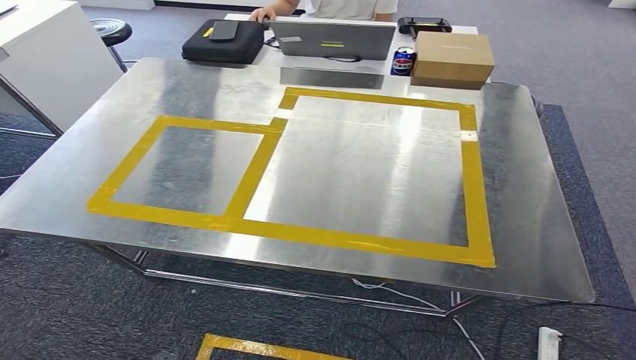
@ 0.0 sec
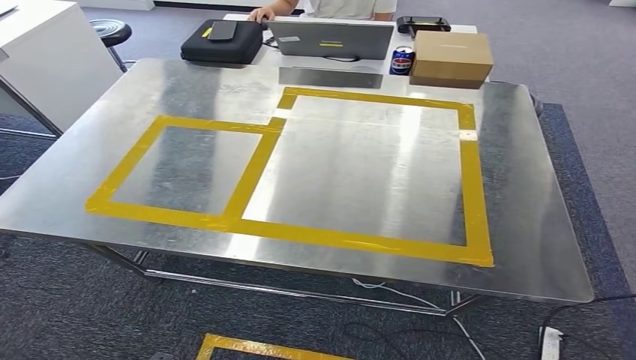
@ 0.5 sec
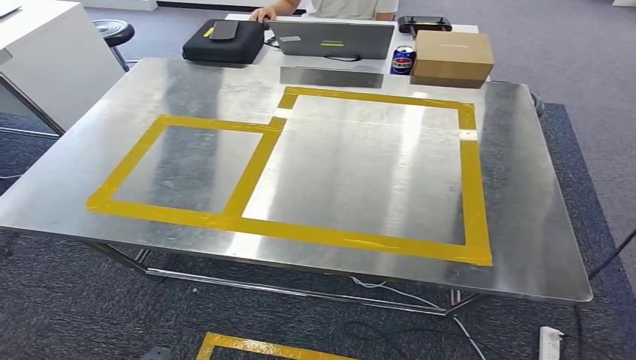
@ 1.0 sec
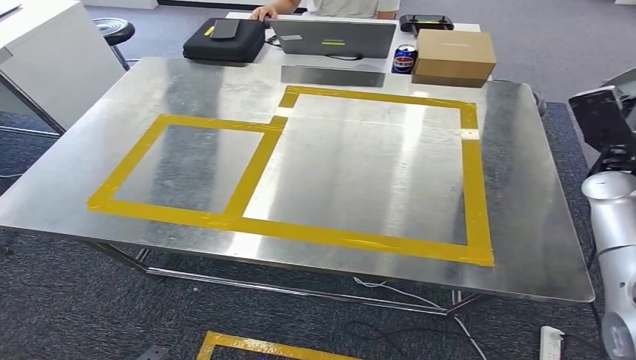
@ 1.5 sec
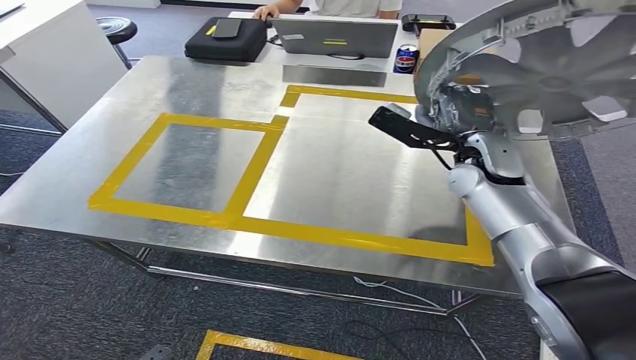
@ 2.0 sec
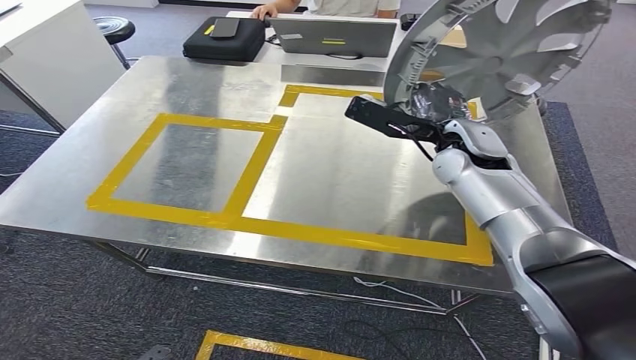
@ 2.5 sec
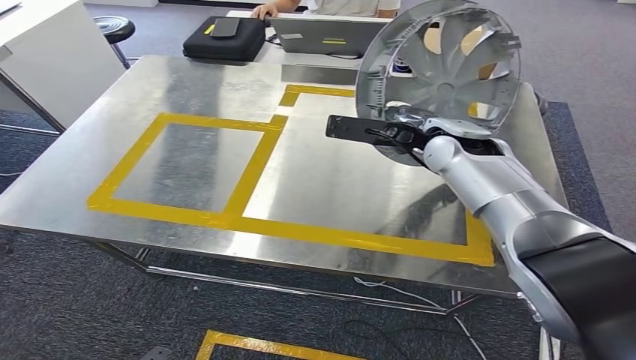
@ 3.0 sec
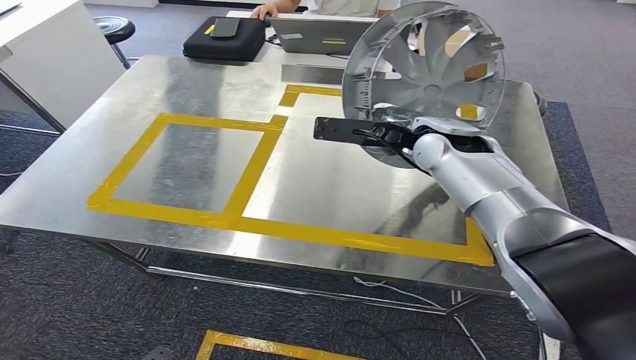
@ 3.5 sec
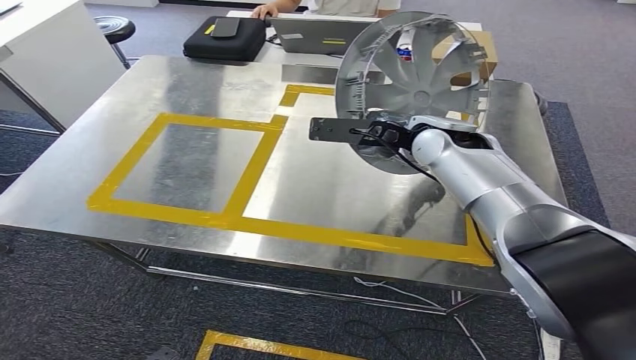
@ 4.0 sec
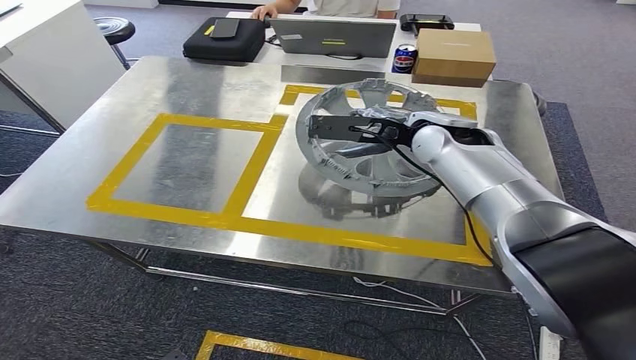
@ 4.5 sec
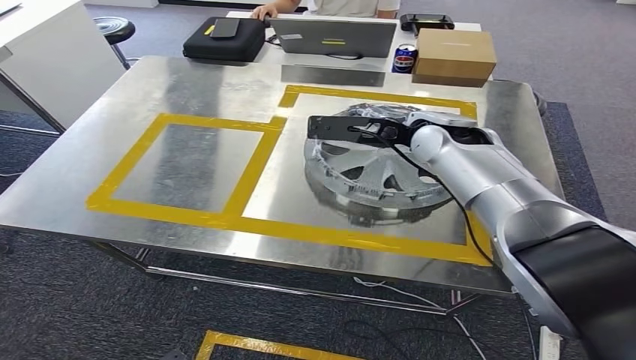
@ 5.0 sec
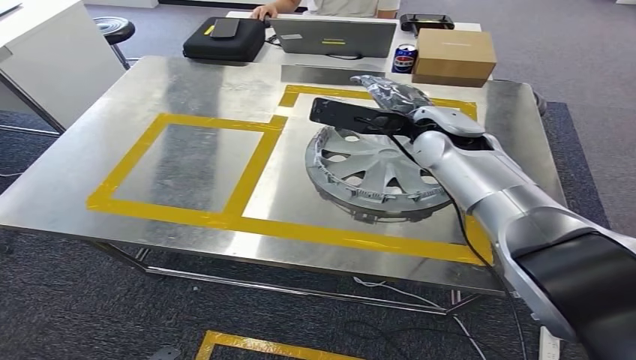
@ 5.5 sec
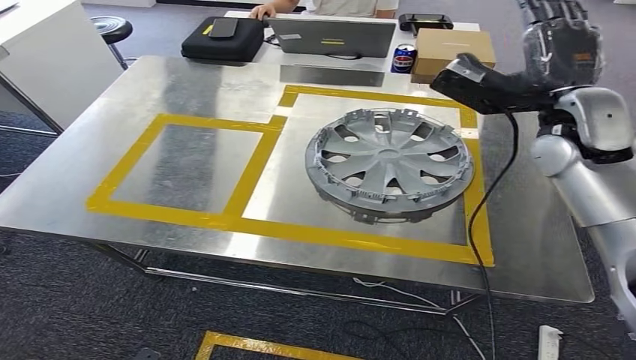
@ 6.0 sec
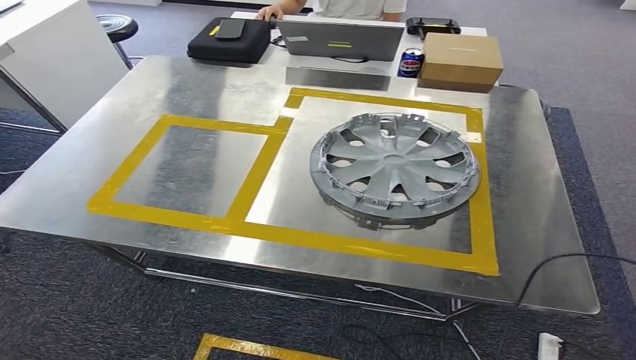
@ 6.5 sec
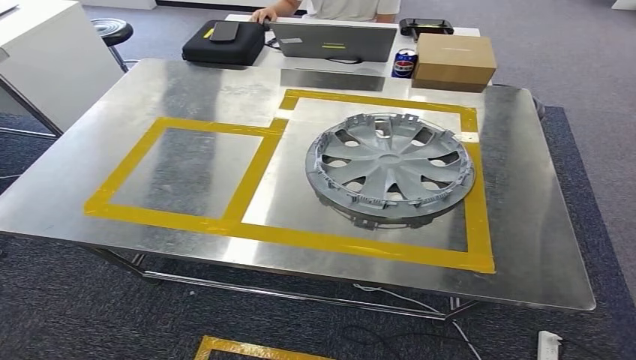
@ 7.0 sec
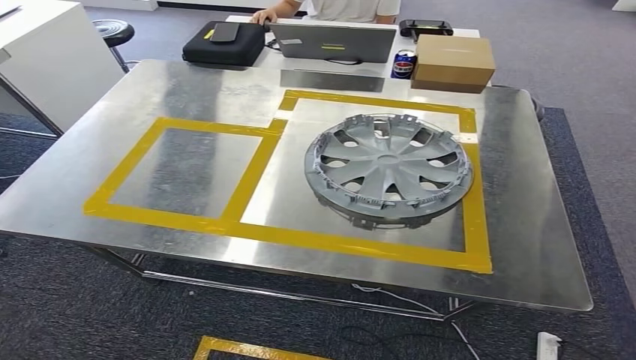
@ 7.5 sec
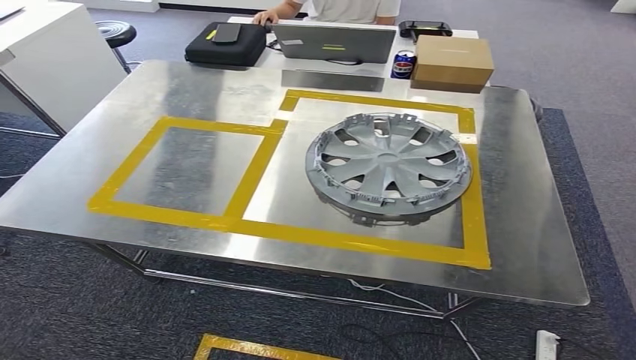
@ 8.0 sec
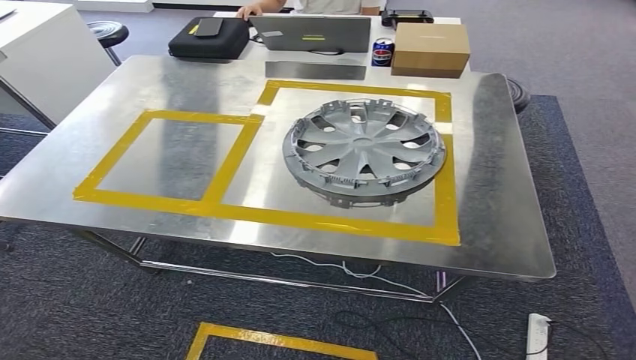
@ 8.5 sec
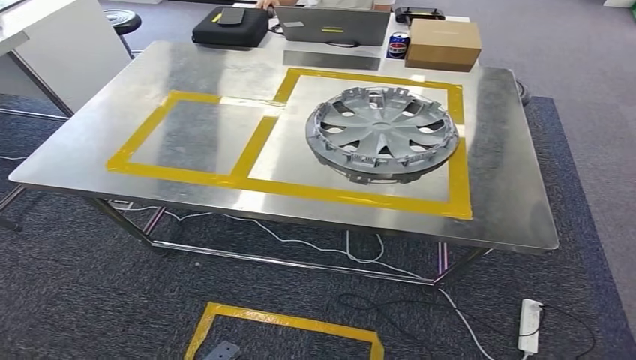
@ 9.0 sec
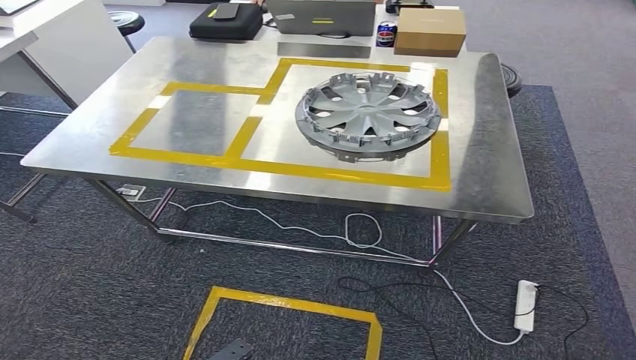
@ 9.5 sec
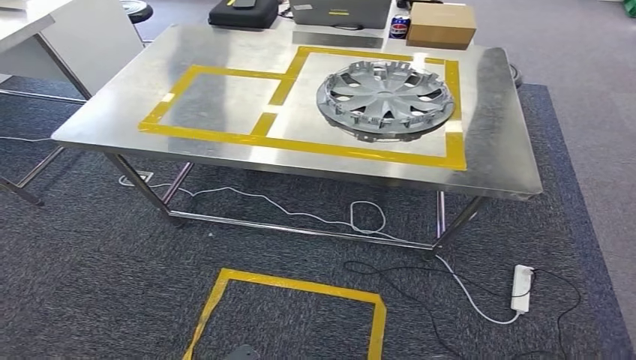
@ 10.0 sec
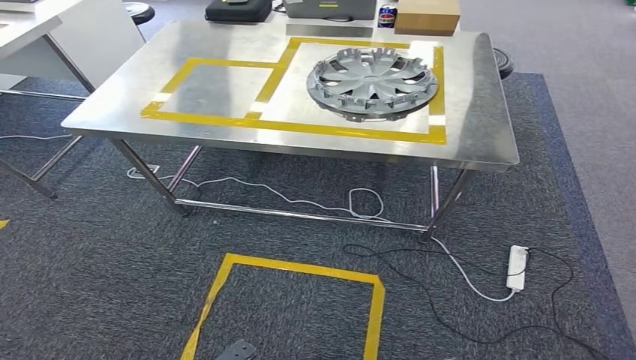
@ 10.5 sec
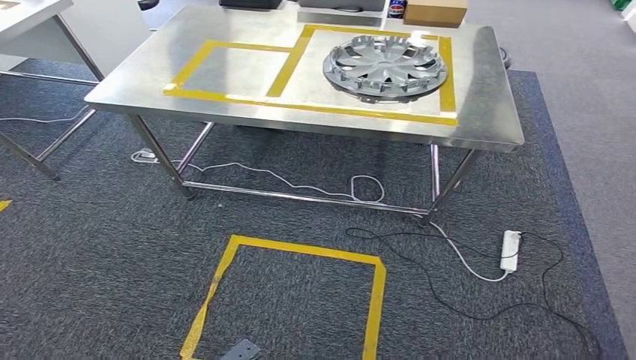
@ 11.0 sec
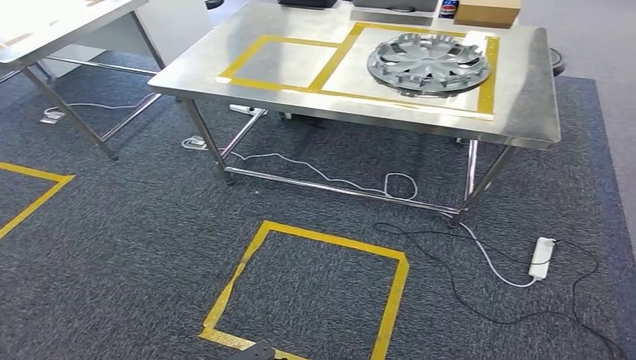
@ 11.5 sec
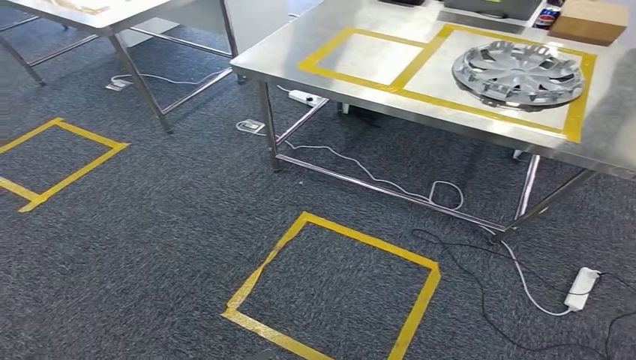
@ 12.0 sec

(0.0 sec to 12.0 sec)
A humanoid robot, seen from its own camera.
Step, 0.0 sec - 6.5 sec: Insert the small parts into the corresponding slots on the workbench.

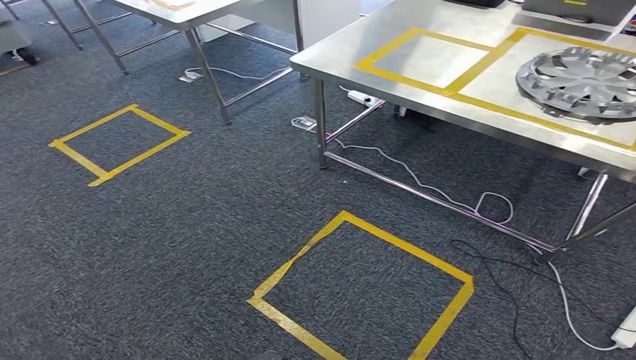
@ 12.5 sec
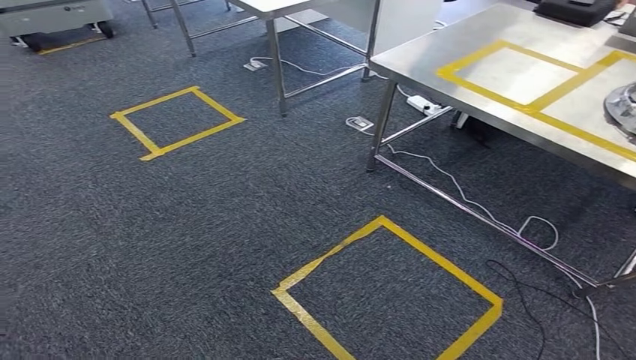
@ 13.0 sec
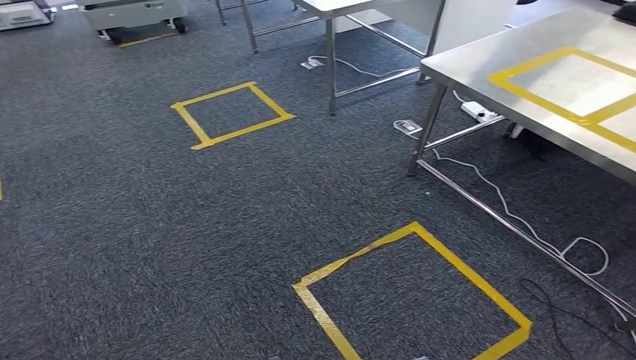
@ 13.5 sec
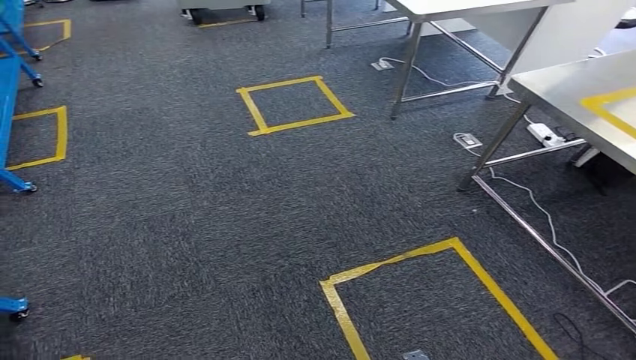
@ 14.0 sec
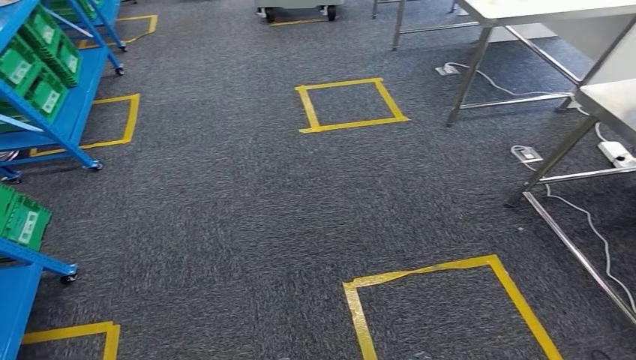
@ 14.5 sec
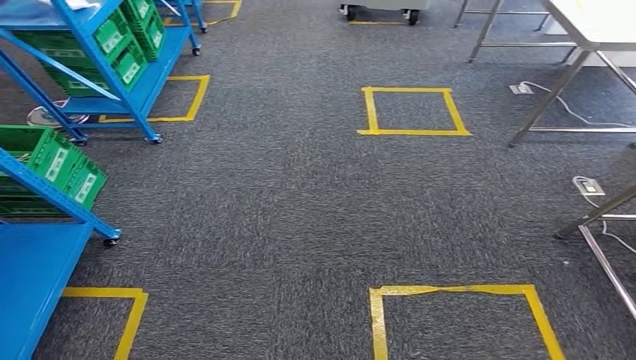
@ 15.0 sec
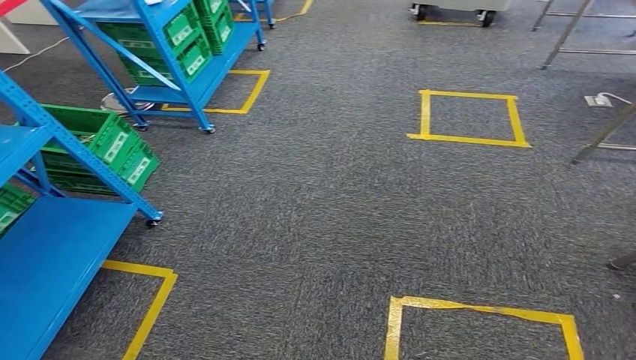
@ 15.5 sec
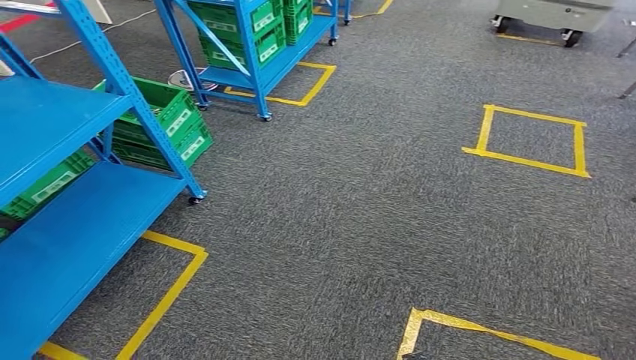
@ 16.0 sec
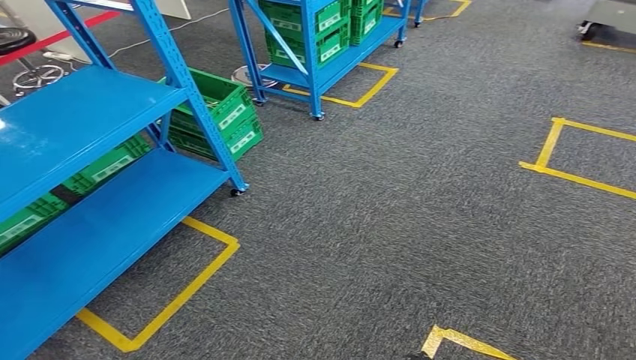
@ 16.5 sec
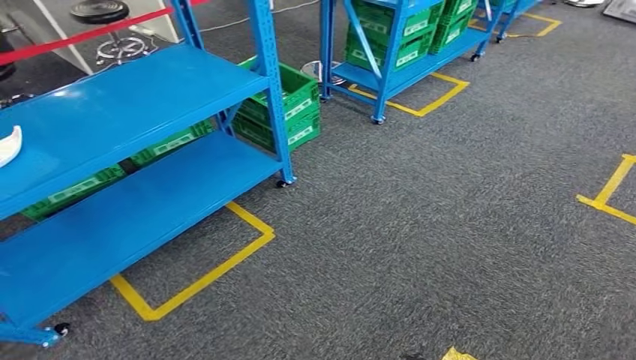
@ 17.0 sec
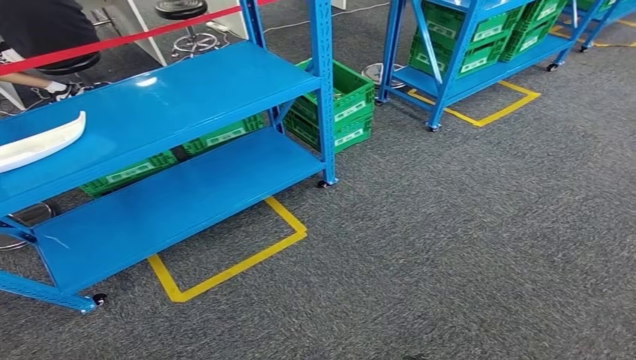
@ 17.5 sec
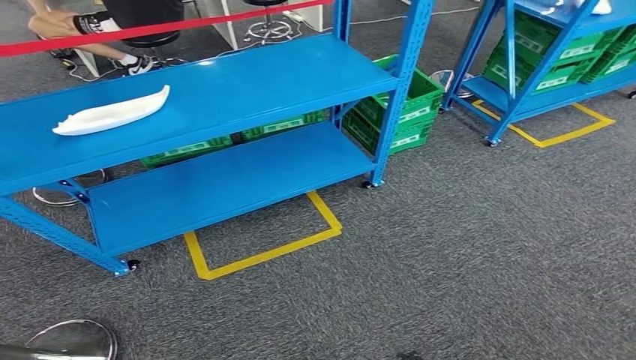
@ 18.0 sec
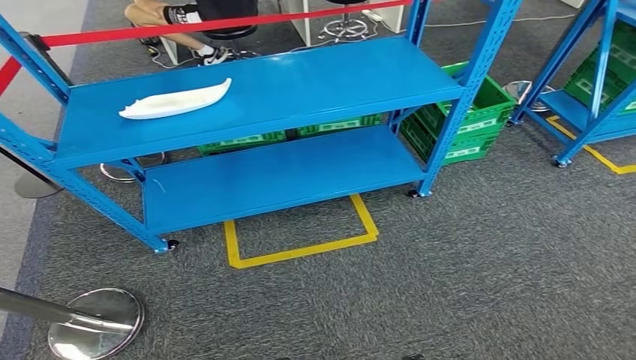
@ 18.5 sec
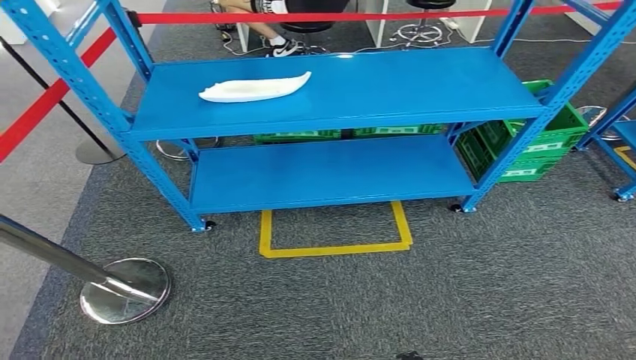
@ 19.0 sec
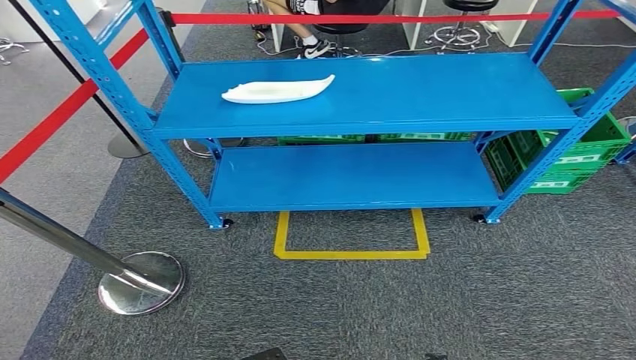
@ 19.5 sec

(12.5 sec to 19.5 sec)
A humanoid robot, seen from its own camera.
Step, 12.5 sec - 19.5 sec: Return to the initial position at the workbench.
